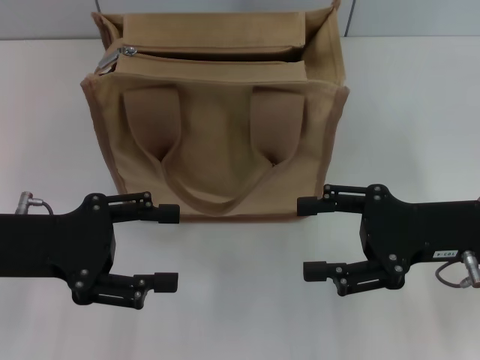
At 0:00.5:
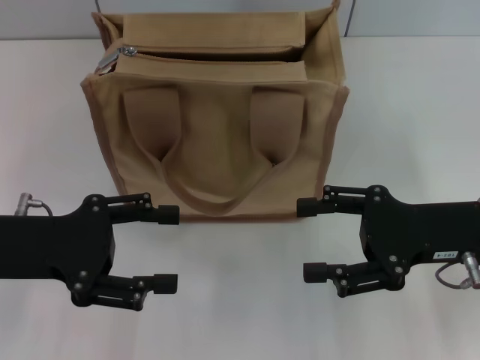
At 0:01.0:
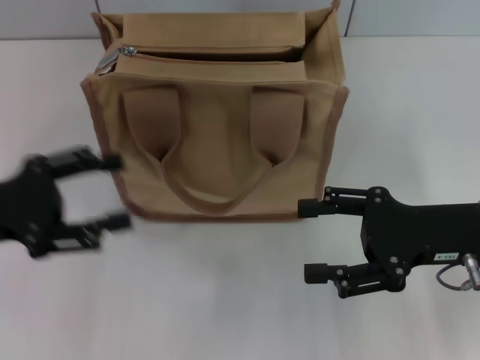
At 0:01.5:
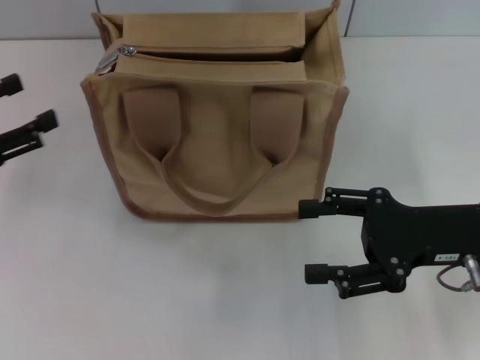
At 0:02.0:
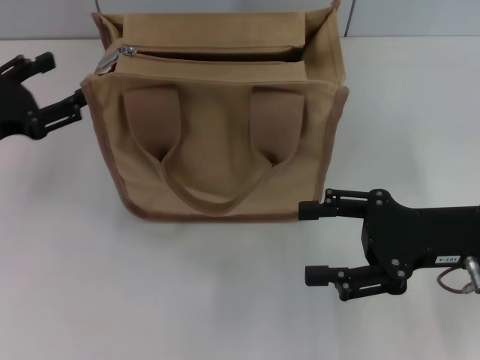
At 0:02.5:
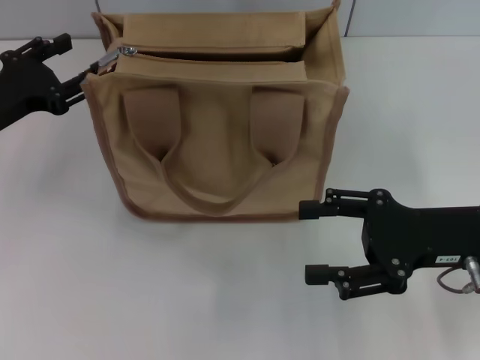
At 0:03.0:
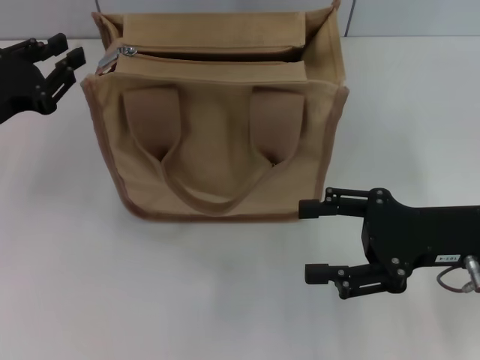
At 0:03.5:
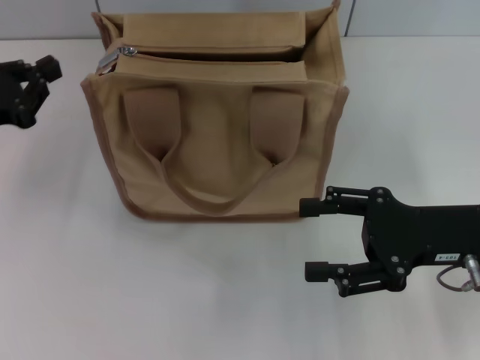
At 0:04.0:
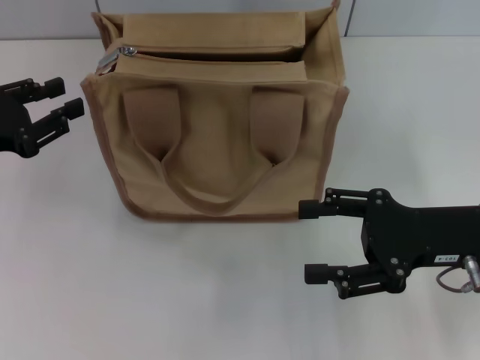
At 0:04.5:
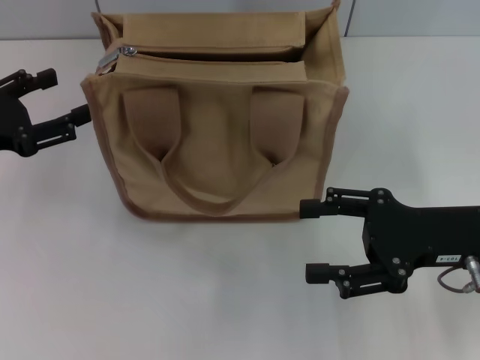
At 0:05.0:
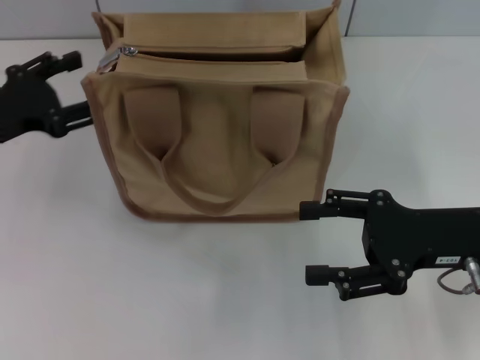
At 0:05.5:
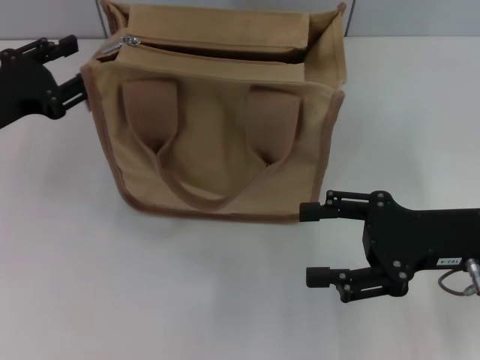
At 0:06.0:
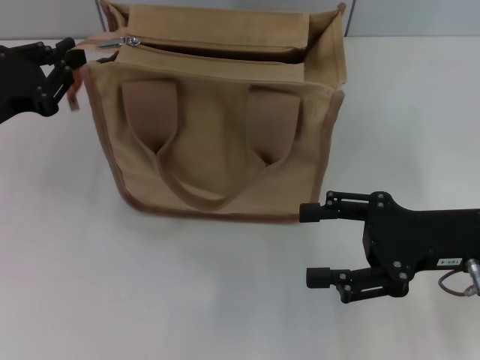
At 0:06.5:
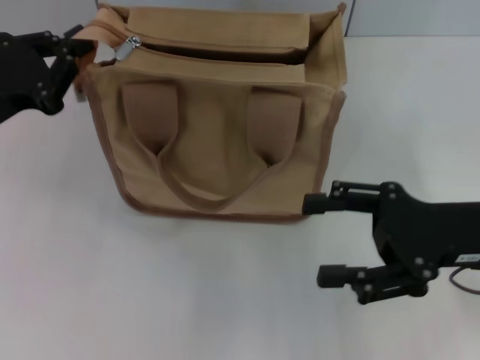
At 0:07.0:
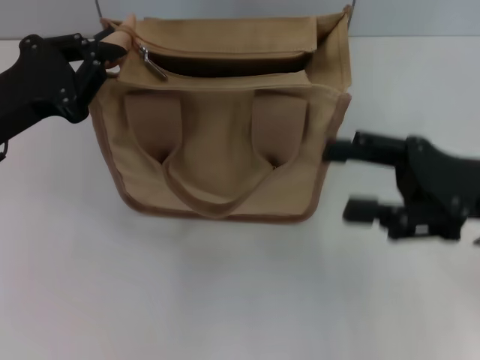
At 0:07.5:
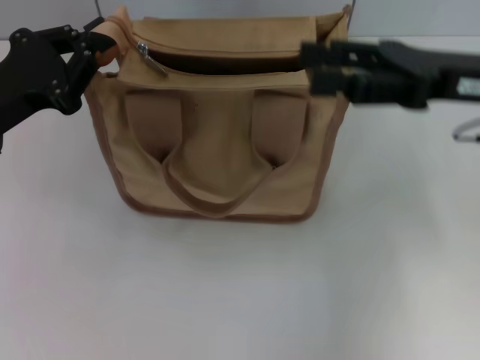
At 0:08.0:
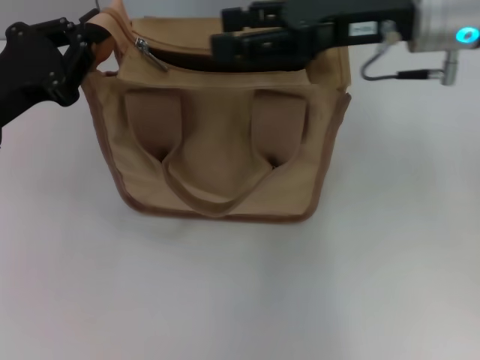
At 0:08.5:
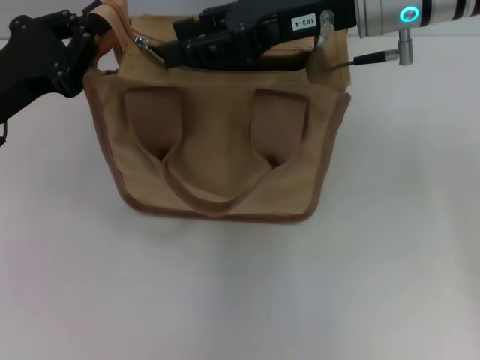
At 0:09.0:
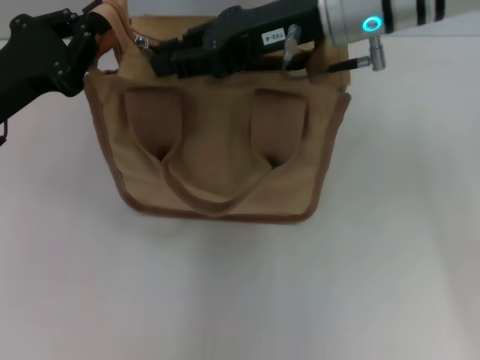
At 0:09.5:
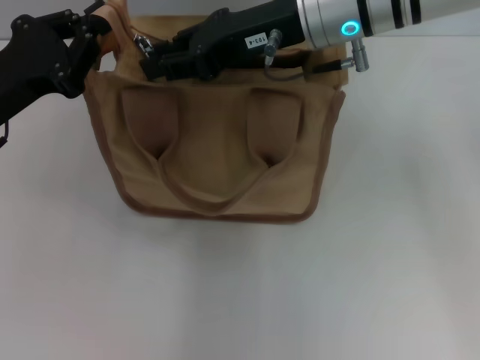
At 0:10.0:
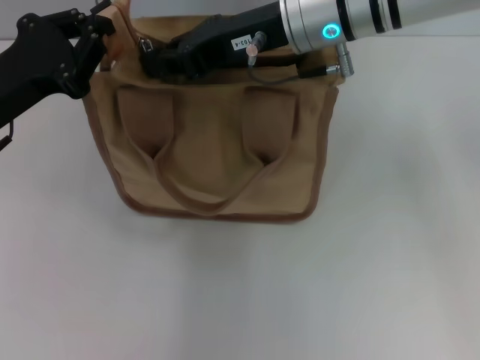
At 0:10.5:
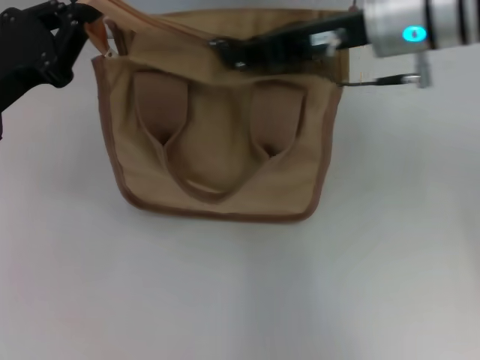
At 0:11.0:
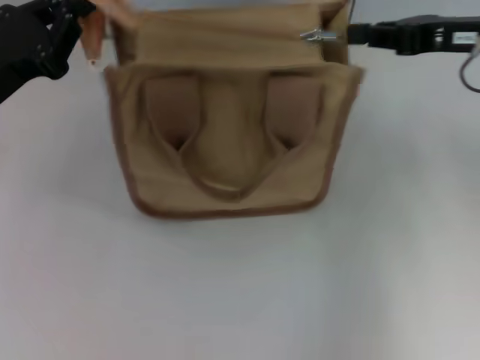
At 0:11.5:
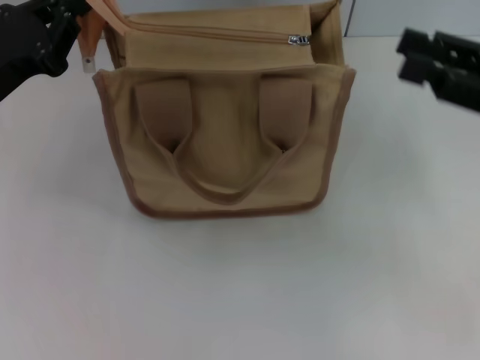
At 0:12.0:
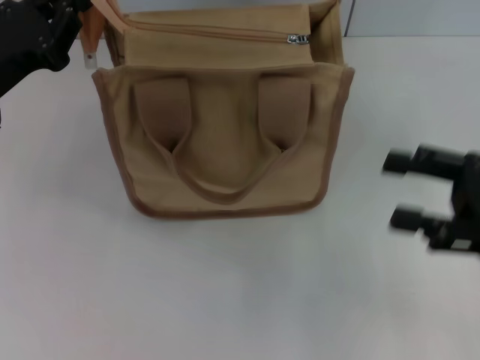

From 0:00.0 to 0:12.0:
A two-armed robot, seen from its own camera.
Step, from 0:00.0 to 0:10.5: Pull up the zipper with your right hand.
From 0:00.0 to 0:02.0: The left gripper heads forward and to the left, covering roughly 10 cm.
From 0:02.0 to 0:04.0: The left gripper closes.
From 0:04.0 to 0:06.0: The left gripper opens, then closes once more.
From 0:06.0 to 0:08.0: The right gripper travels forward, upward and to the left by approximately 20 cm.
From 0:08.0 to 0:10.0: The right gripper shifts about 10 cm to the left, and closes its fingers.
From 0:10.0 to 0:12.0: The right gripper is displaced to the right, backward and downward by some 30 cm, and opens its fingers.

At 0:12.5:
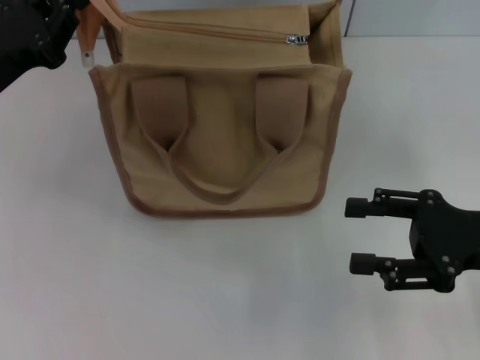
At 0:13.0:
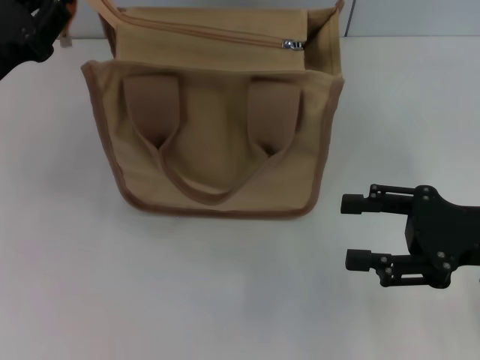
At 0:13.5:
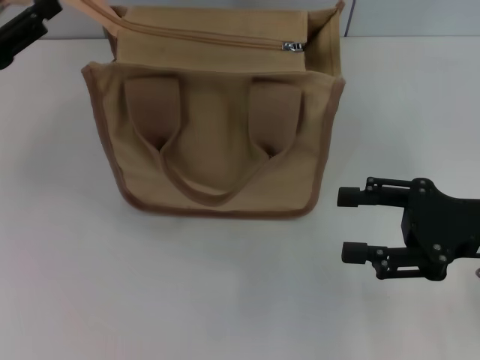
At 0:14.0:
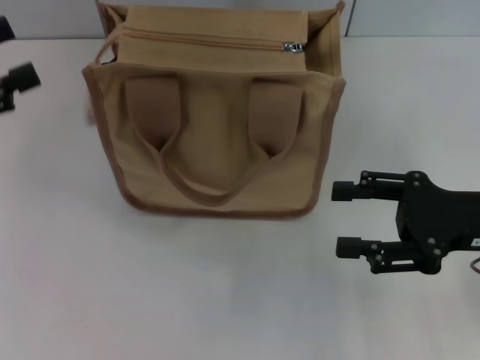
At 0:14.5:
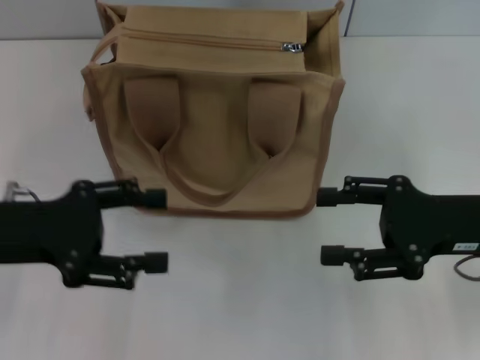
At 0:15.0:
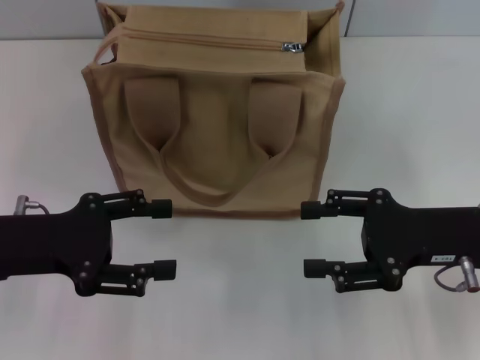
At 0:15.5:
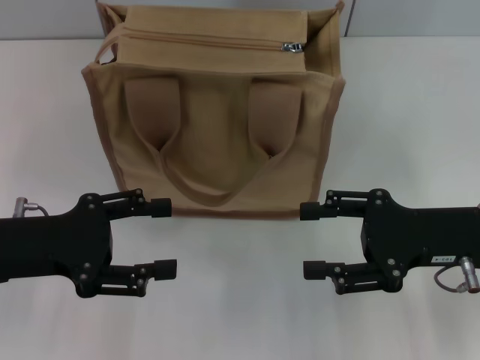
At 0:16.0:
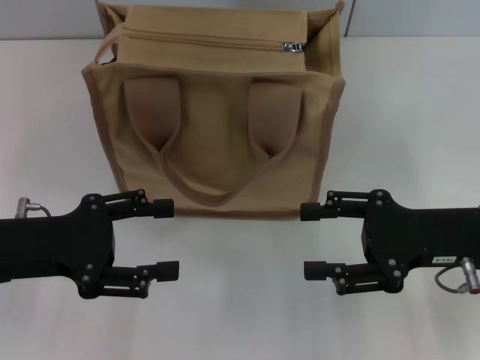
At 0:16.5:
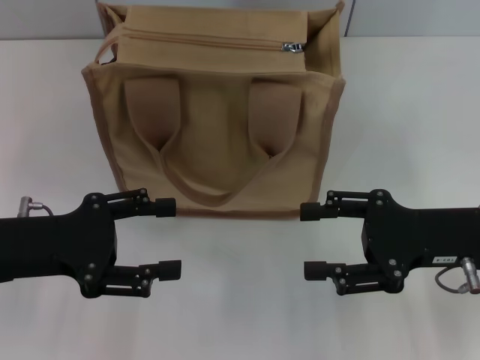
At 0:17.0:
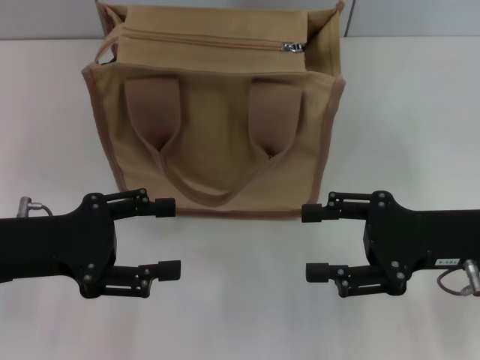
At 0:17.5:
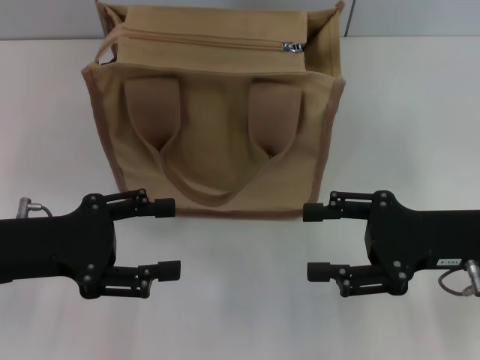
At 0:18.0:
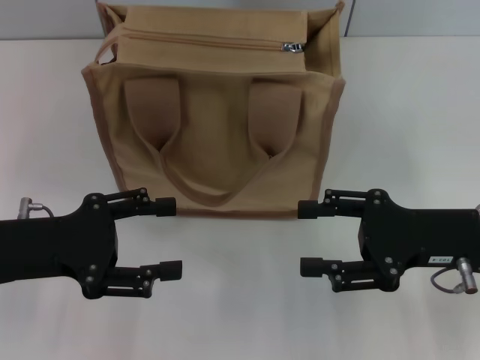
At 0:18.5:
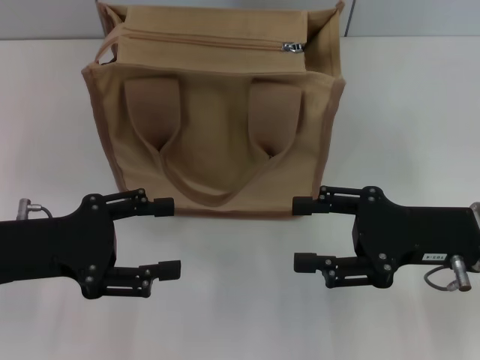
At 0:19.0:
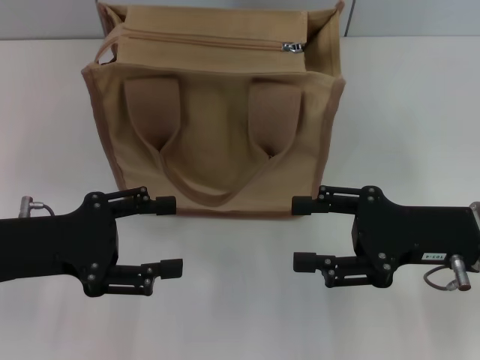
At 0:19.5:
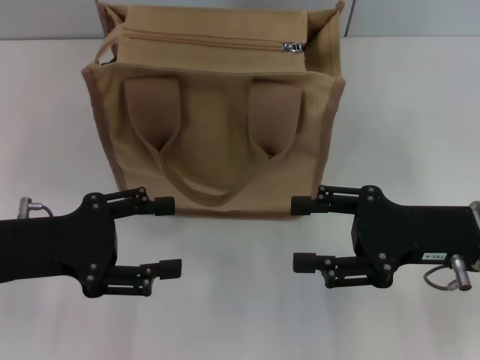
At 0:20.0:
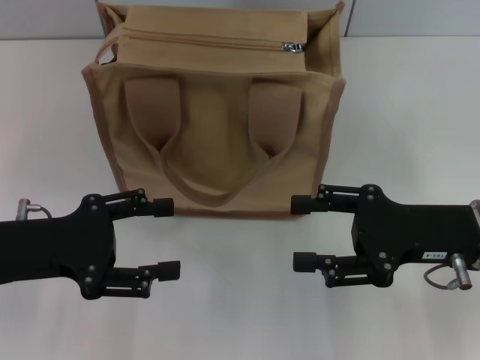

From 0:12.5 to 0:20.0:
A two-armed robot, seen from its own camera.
From 0:12.5 to 0:14.5: The left gripper goes some 5 cm backward, moves roughly 5 cm to the left and comes back, and opens.
From 0:14.5 to 0:16.5: The grippers move only a little.
From 0:16.5 to 0:20.0: Neither gripper changes place.
